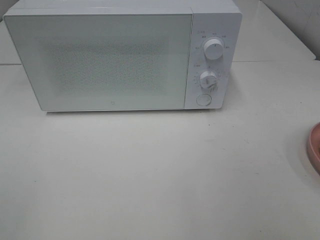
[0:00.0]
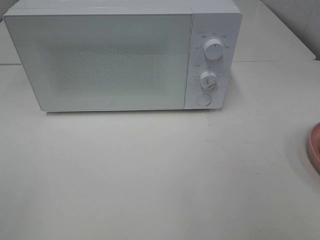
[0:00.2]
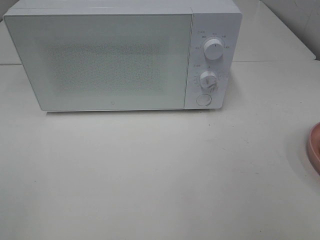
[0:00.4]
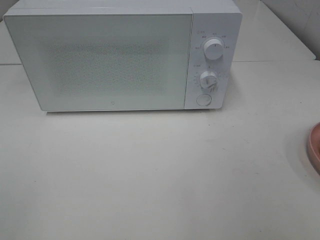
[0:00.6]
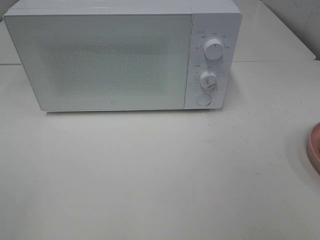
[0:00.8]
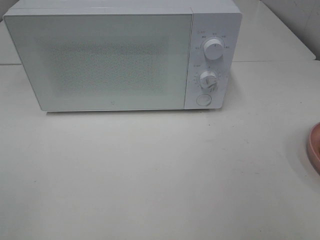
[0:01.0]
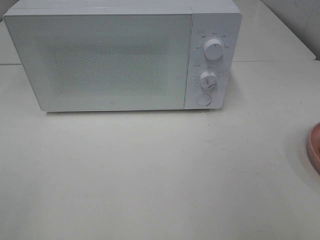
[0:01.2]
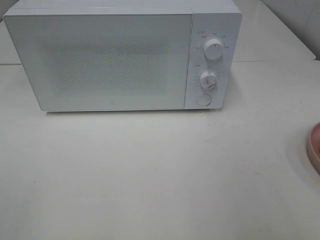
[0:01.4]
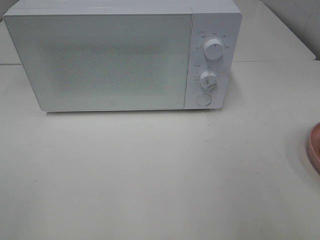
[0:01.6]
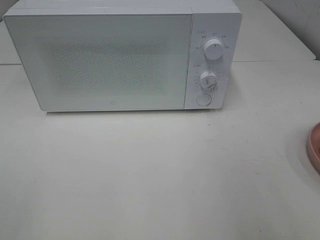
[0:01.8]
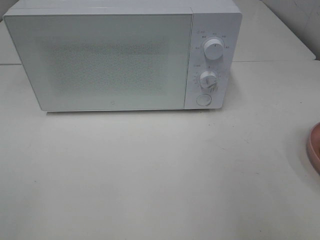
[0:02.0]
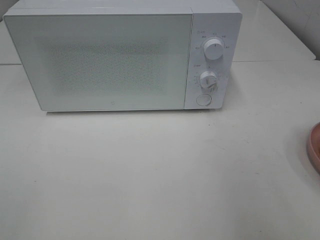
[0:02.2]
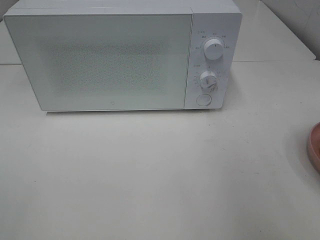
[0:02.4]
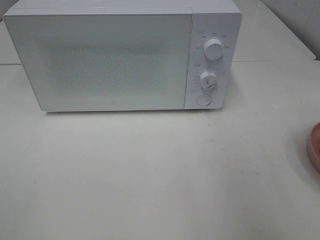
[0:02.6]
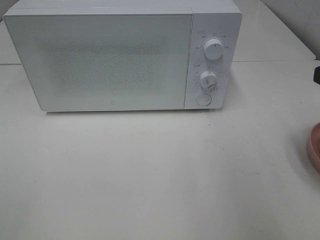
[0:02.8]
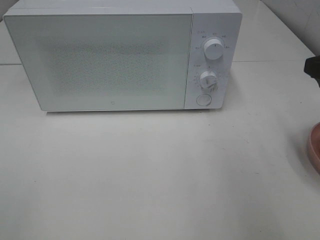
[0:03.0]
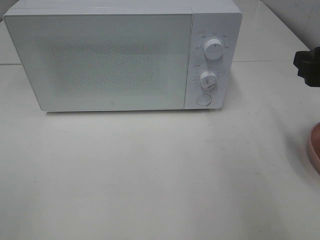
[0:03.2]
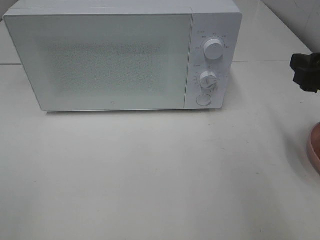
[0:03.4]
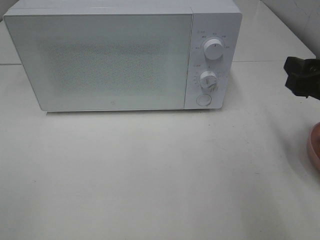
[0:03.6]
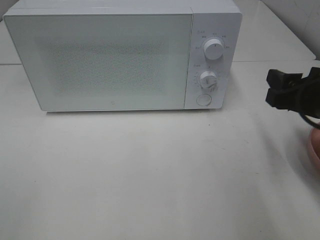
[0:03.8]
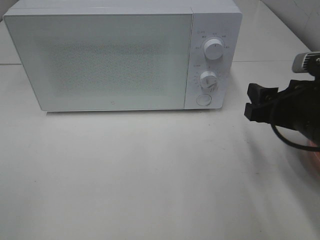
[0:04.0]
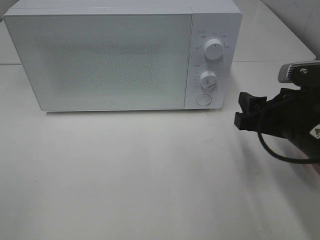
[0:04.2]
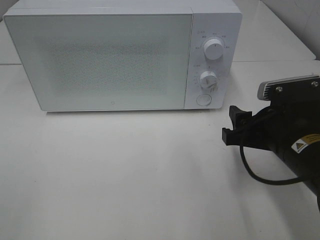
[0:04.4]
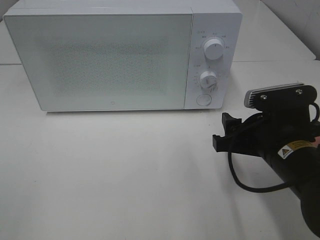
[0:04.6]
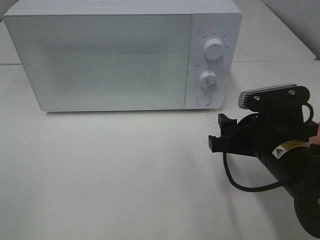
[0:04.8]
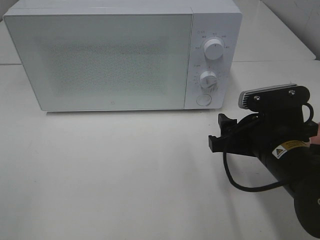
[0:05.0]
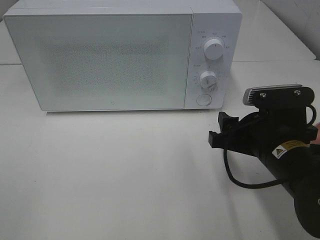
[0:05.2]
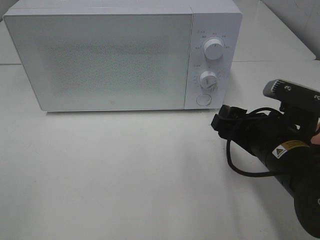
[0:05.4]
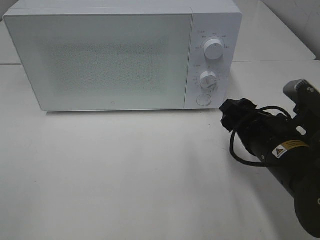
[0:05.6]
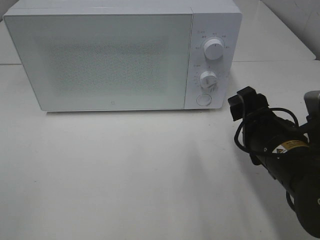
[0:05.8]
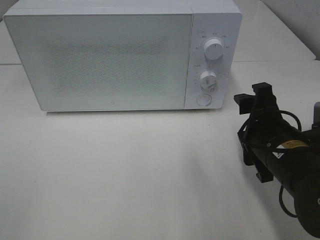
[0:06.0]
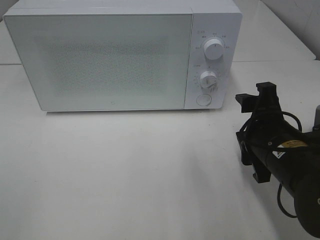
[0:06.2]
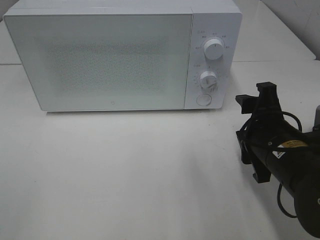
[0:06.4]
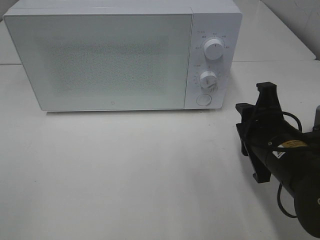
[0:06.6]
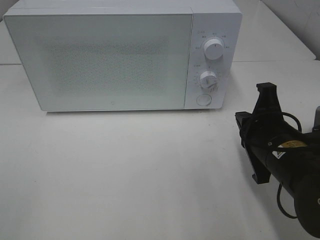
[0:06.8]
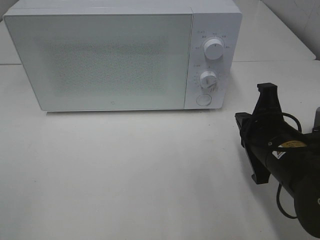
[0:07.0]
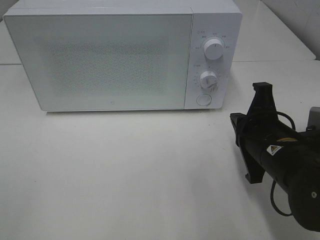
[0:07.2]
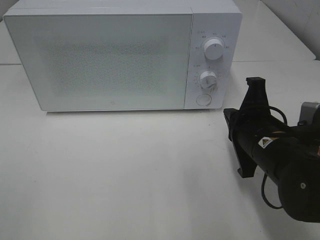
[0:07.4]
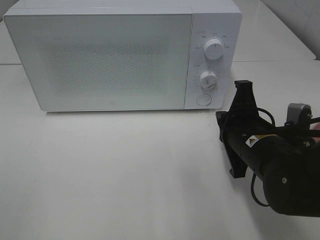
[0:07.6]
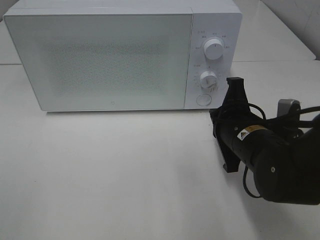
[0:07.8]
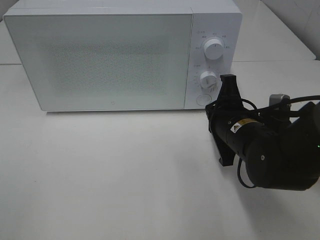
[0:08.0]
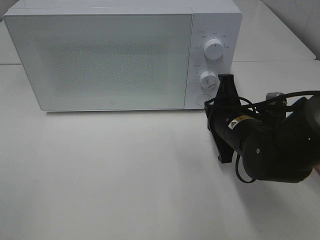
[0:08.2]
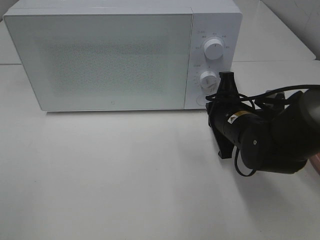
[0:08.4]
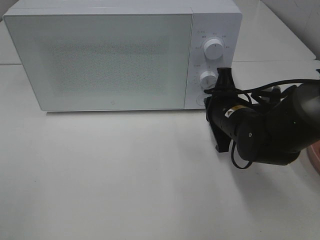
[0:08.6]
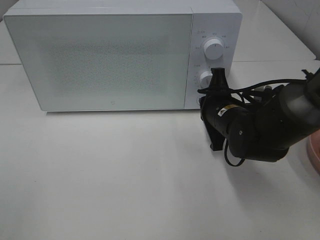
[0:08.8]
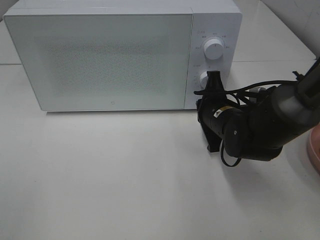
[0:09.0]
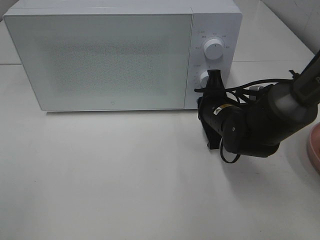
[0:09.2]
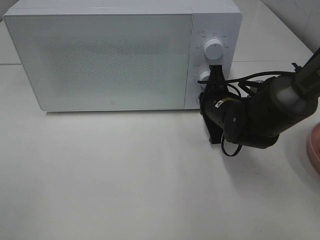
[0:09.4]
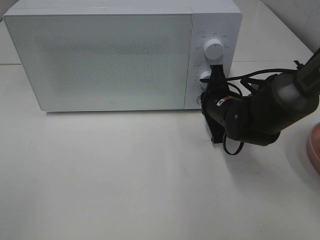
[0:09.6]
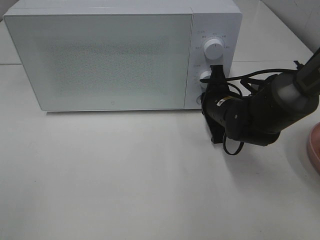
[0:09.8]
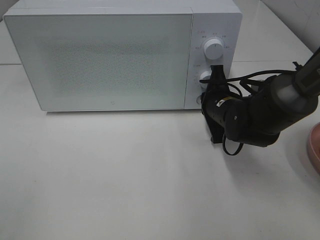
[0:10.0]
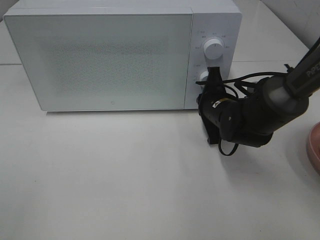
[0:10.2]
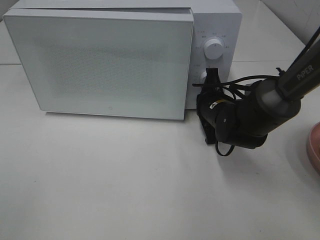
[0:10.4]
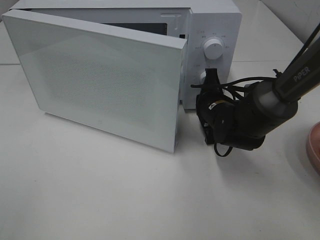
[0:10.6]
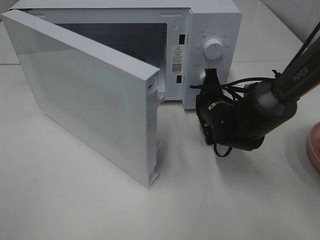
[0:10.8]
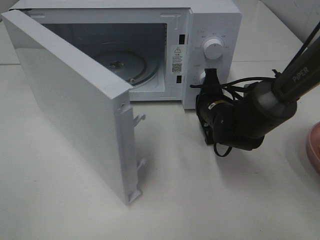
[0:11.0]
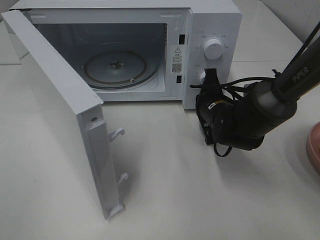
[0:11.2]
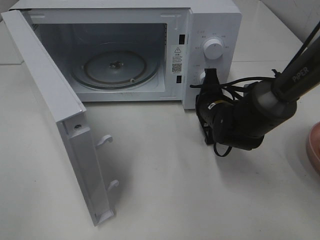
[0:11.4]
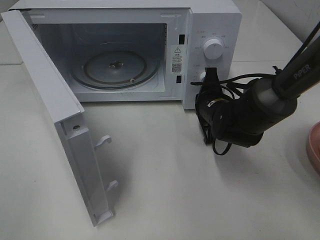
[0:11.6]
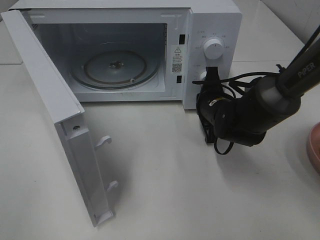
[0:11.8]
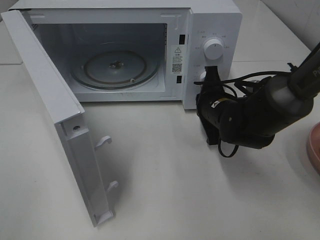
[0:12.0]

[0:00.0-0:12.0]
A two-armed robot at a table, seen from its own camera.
Task of the whole recording: Heat Sandwich.
0:01.6 to 0:03.0: The right gripper travels forward by approximately 15 cm.
0:03.0 to 0:04.4: The right gripper travels downward and to the left by approximately 15 cm.
0:06.0 to 0:07.6: The right gripper closes.
0:07.6 to 0:09.0: The right gripper shifts some 10 cm forward.
0:09.0 to 0:10.4: The grippers move only a little.

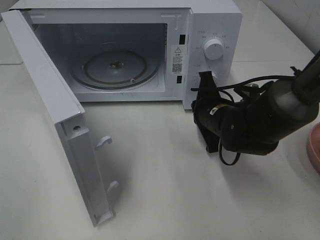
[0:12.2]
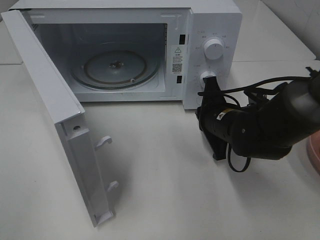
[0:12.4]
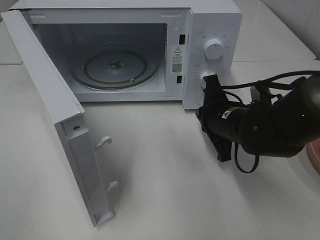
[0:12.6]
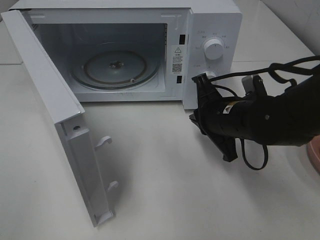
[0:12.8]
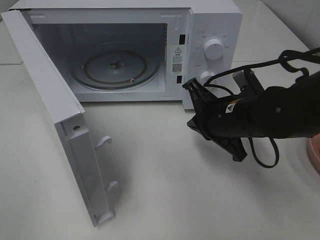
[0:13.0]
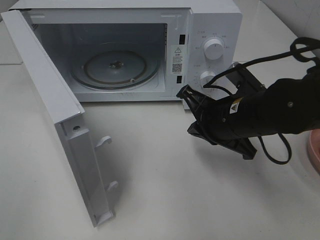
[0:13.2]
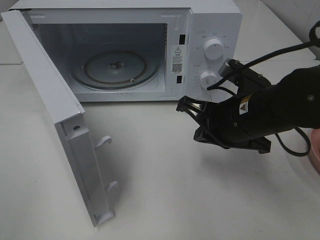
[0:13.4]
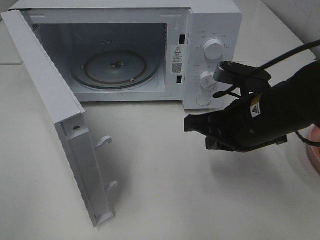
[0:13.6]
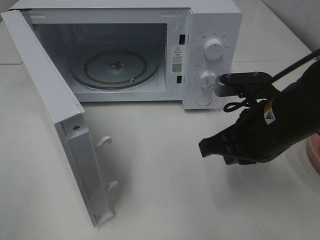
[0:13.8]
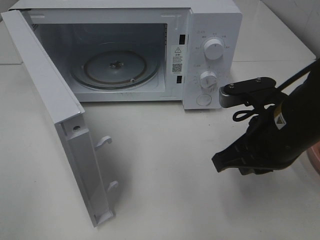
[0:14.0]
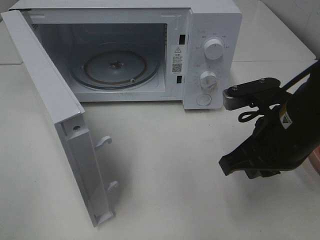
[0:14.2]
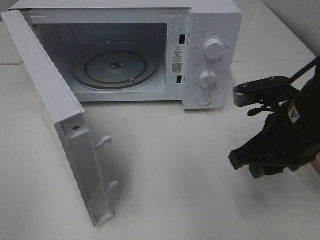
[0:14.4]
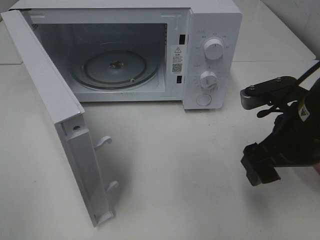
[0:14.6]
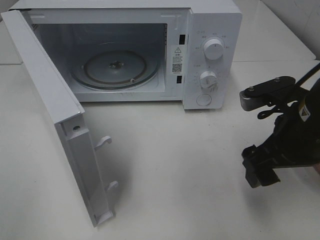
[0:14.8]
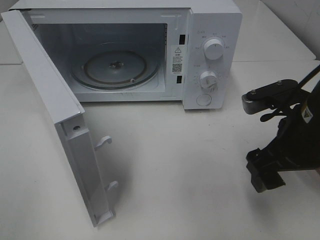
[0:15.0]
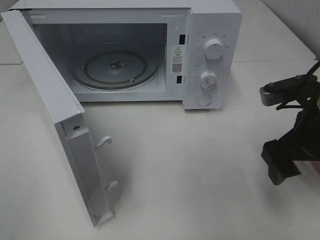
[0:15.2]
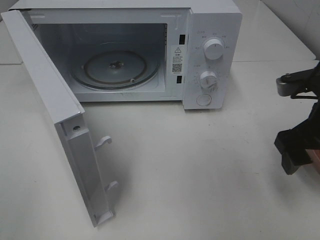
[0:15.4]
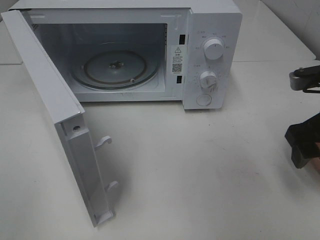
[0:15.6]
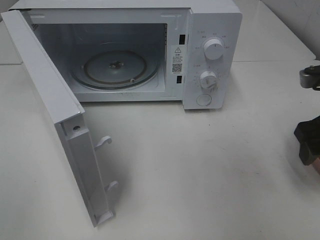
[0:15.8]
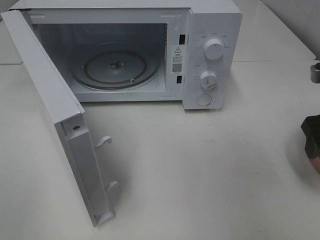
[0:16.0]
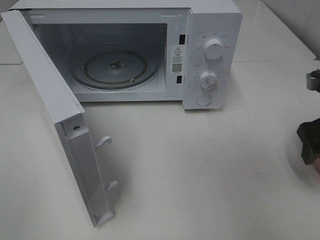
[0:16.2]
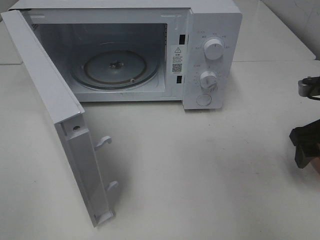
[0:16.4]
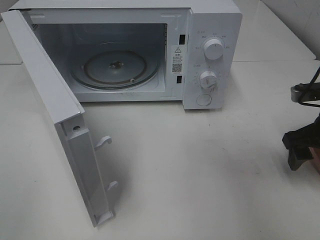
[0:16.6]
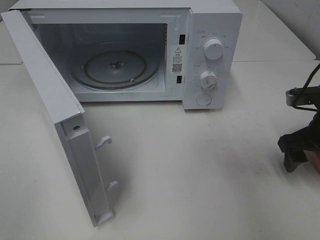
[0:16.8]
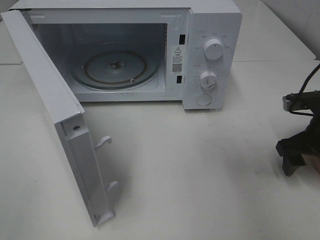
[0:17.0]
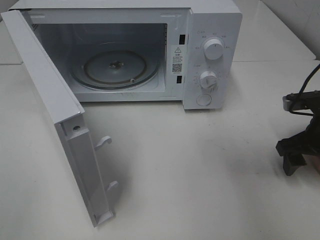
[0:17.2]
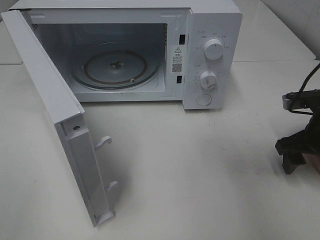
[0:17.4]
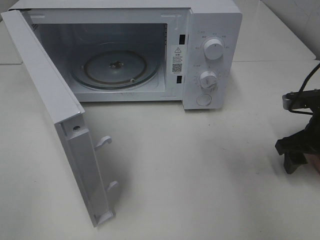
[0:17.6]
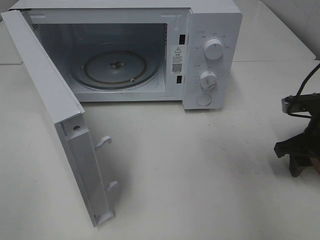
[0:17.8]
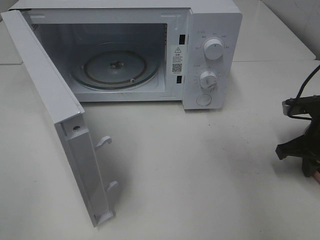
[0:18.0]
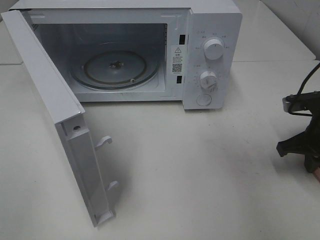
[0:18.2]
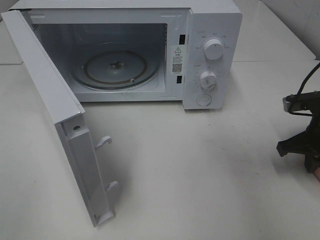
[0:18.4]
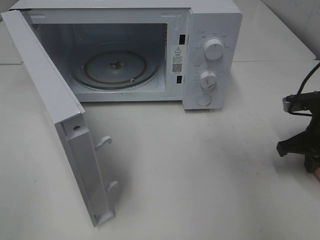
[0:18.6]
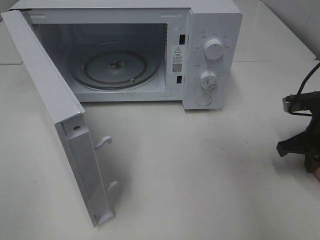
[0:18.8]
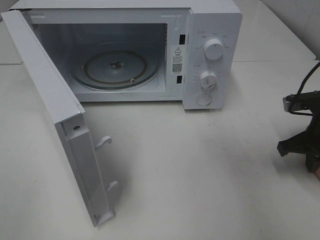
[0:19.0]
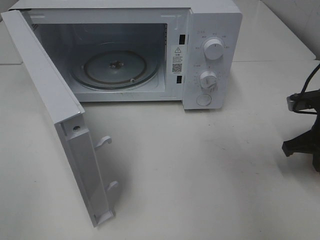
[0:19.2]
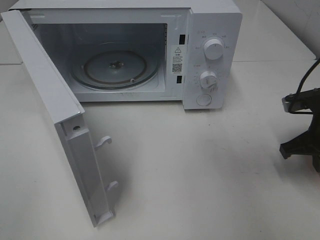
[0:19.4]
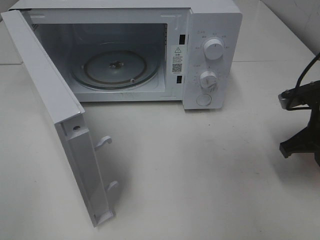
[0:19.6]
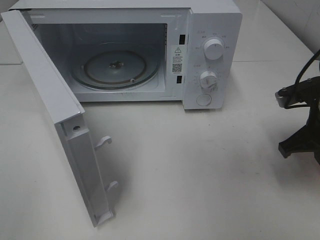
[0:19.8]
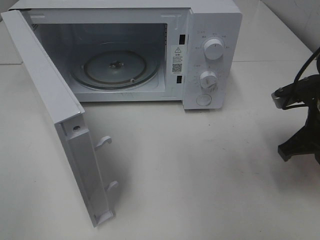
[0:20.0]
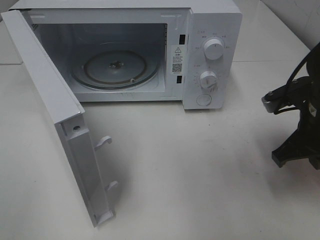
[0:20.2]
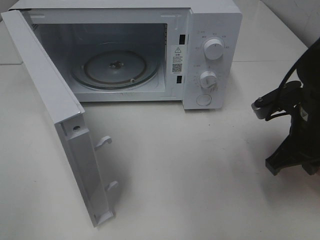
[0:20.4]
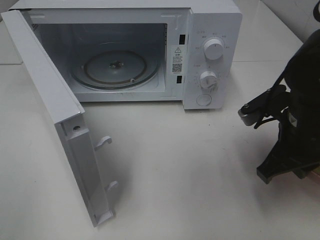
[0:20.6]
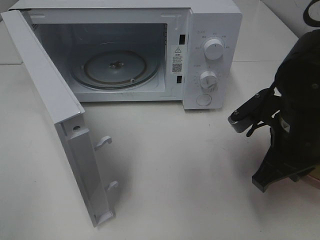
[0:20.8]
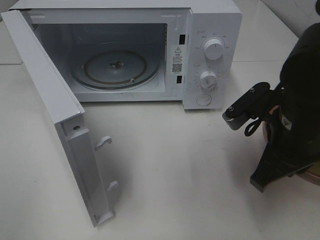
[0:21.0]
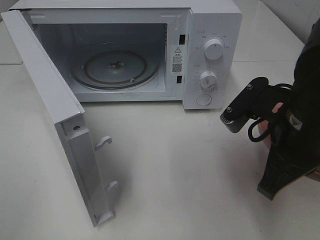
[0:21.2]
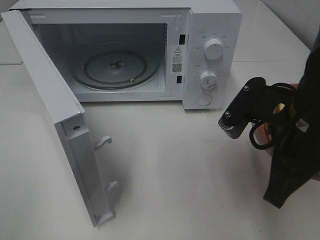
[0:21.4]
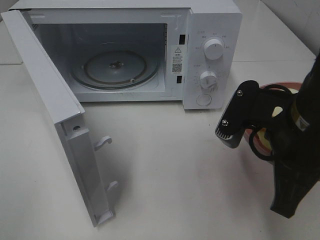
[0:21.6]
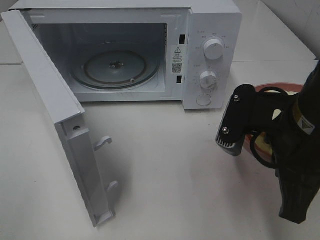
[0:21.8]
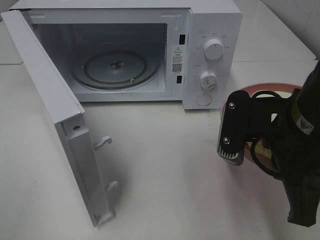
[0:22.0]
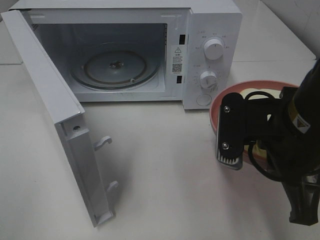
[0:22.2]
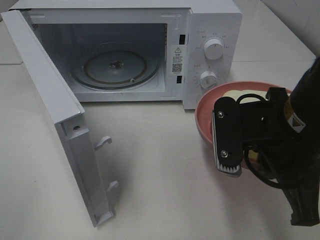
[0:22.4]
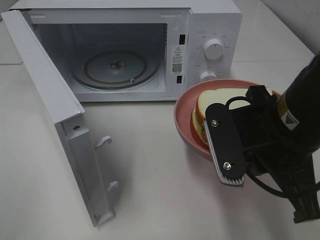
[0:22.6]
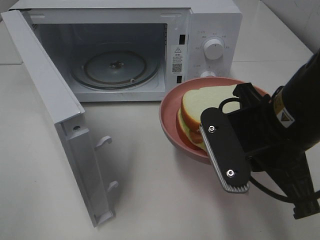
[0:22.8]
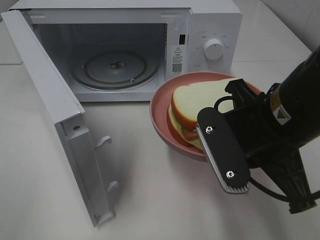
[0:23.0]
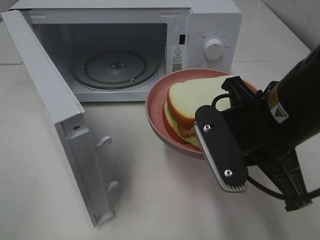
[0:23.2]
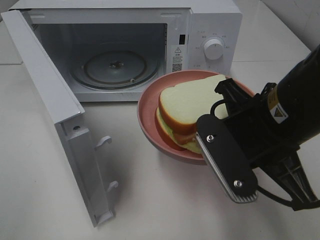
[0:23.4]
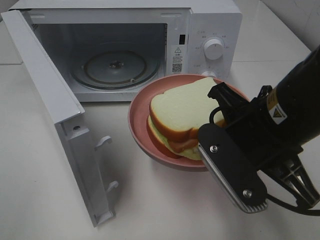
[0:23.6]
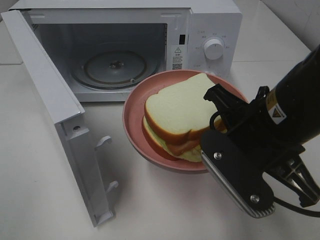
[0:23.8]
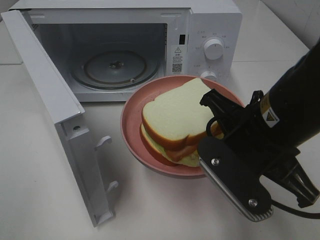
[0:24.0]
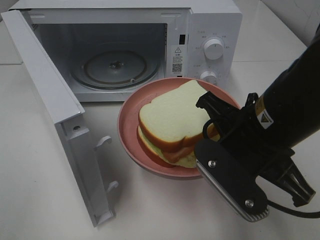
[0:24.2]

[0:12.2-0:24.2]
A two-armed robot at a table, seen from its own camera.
Task of the whole recording: Heat Sandwich.
Step, 0:12.2 to 0:18.6: Right hand: grab the plate with the sandwich.
0:12.2 to 0:13.8: The right gripper is displaced backward and upward by some 15 cm.
0:13.8 to 0:15.2: The right gripper shifts some 5 cm to the right, and opens up.
0:15.2 to 0:16.6: The right gripper shifts roughly 10 cm to the right and forward.
0:16.6 to 0:18.2: The right gripper closes.
0:18.2 to 0:19.8: The right gripper moves approximately 5 cm.
0:19.8 to 0:21.2: The right gripper goes about 10 cm to the left and backward.
